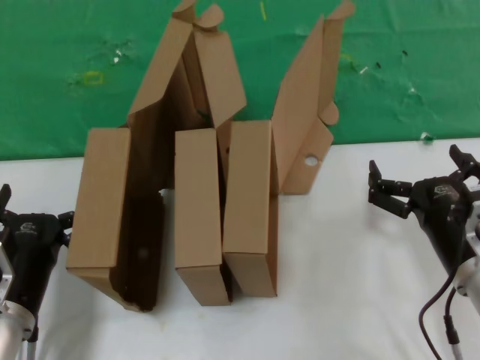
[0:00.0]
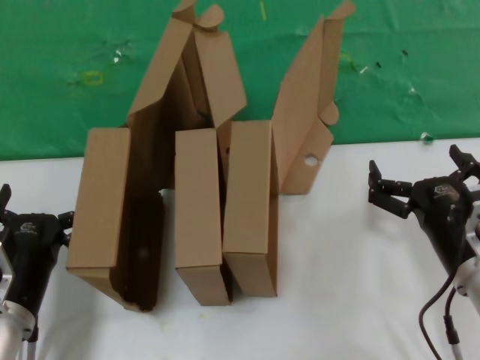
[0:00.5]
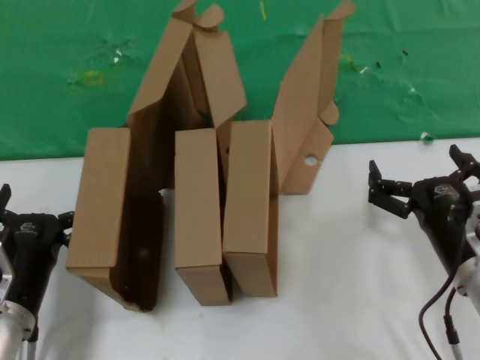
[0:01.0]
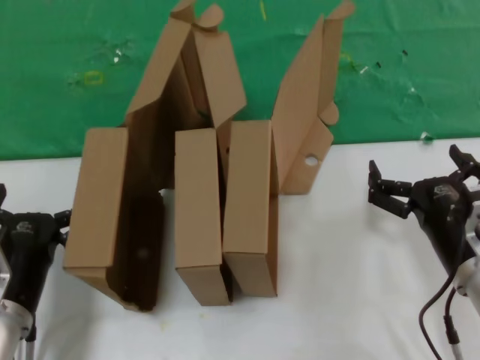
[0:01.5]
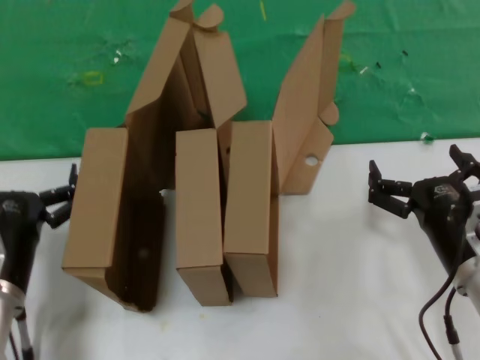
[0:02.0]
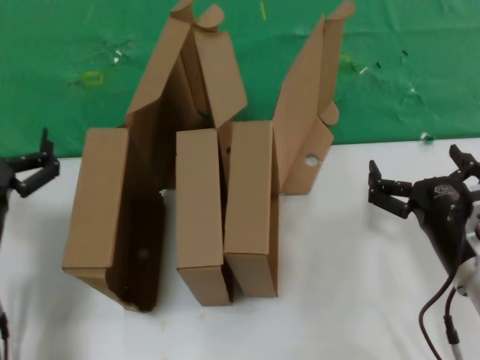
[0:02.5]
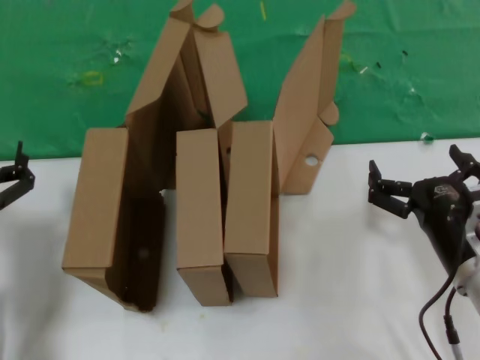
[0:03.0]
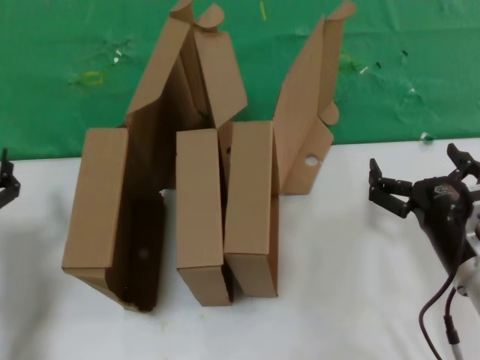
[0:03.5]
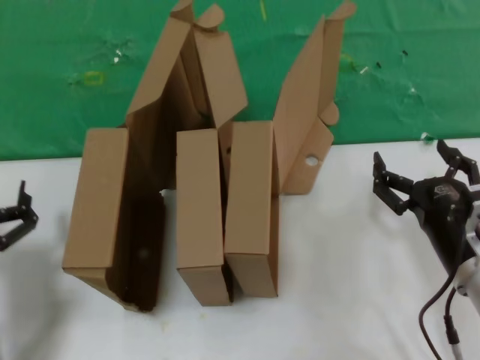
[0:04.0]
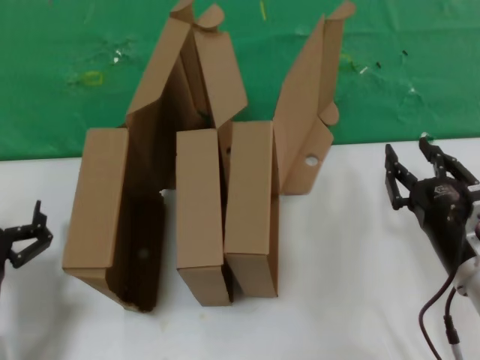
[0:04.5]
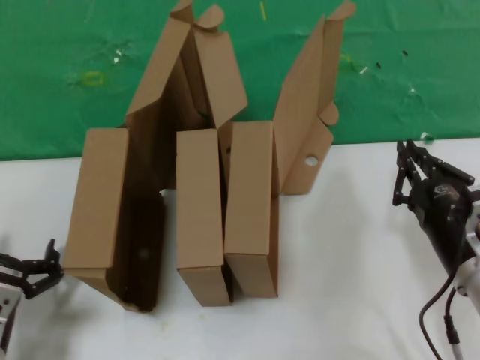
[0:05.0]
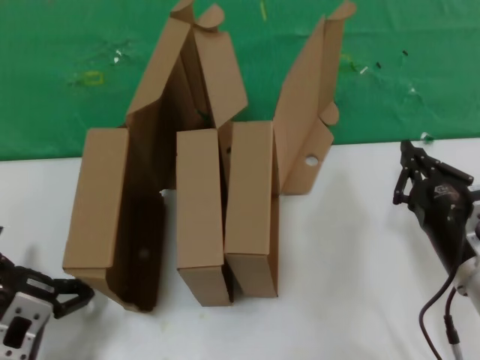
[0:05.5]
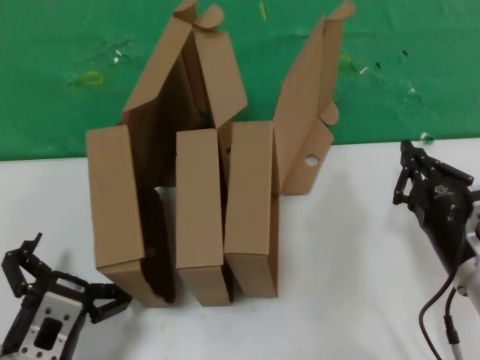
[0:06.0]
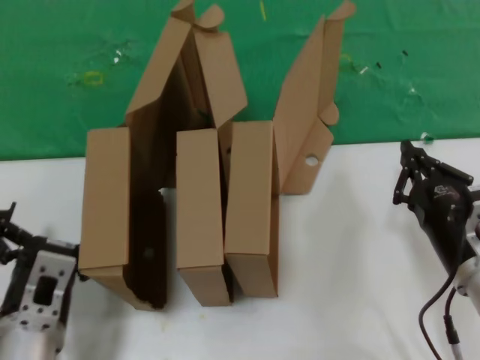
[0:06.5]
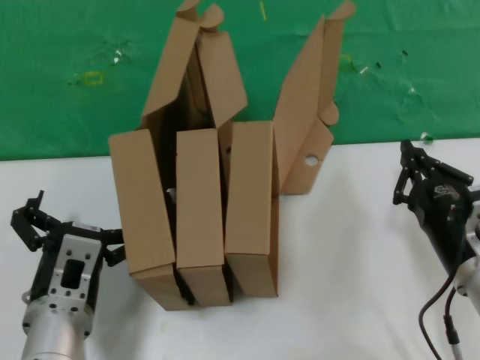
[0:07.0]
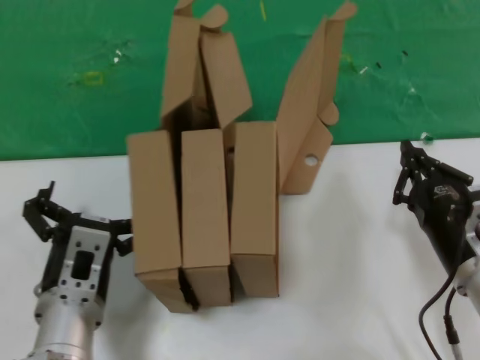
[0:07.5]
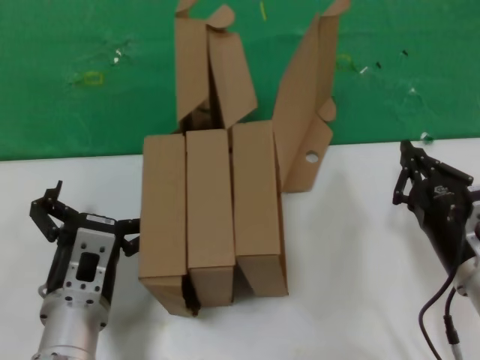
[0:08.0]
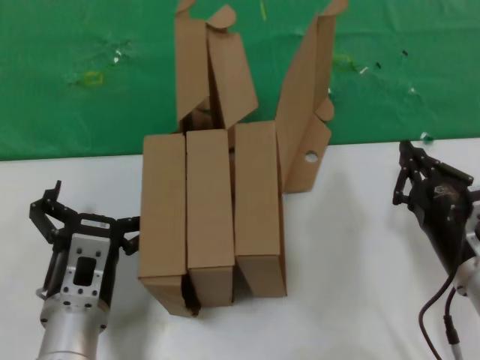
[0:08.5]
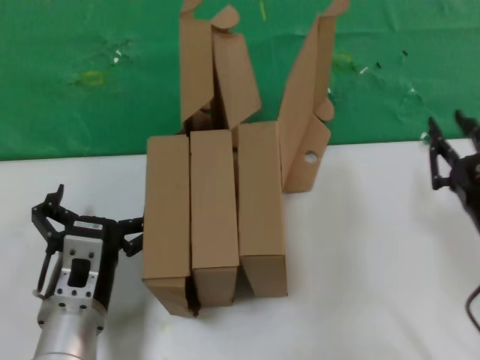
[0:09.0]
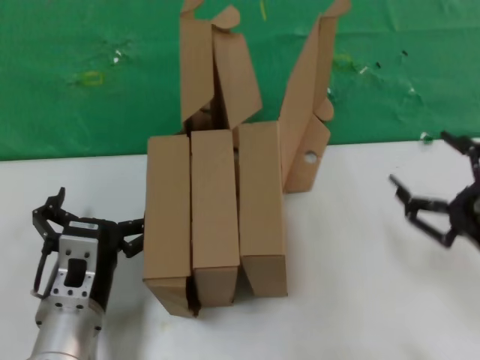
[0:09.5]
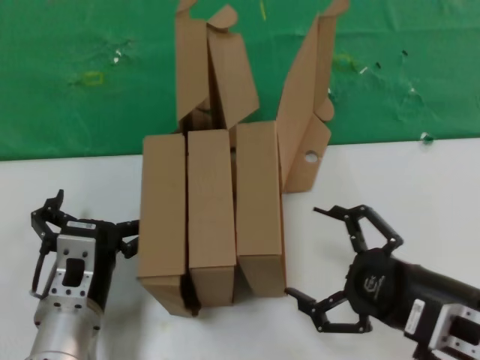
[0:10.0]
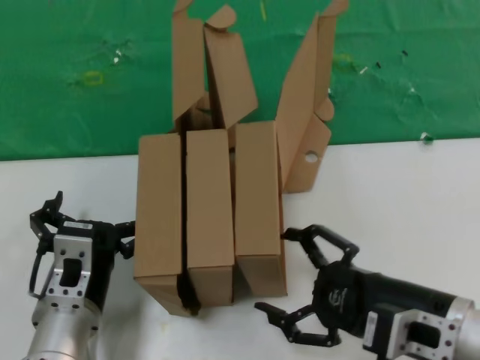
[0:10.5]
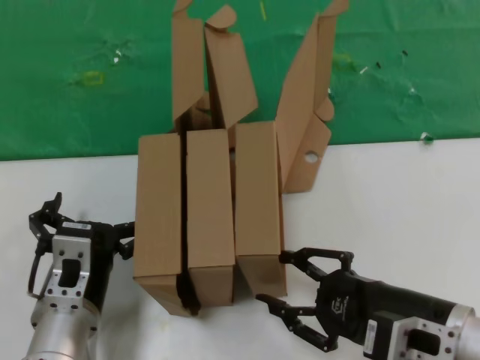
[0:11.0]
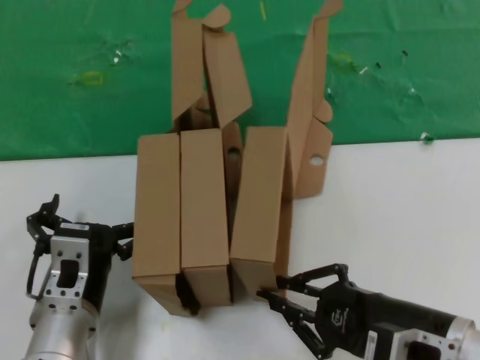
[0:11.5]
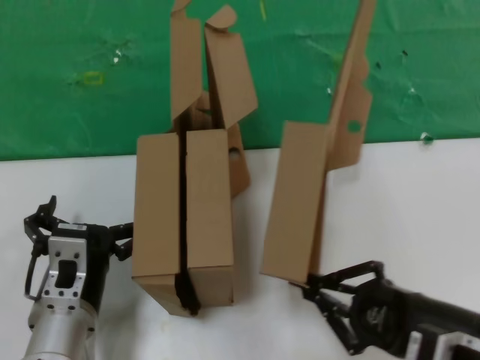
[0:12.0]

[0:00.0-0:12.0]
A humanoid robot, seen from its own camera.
Task of the whole recording: pick up the paper box and put it at the back.
Step, 0:00.0 to 0:11.5: Grasp the paper box.
0:00.0 to 0:02.0: The hands stay close to where they were, moving slightly.
0:02.0 to 0:04.0: The left hand shifts by roughly 5 cm.
0:04.0 to 0:06.0: The left hand shifts approximately 10 cm to the right.
0:06.0 to 0:08.0: The left hand travels forward and to the right by roughly 10 cm.
0:08.0 to 0:10.0: The right hand moves backward and upward, roughly 10 cm.

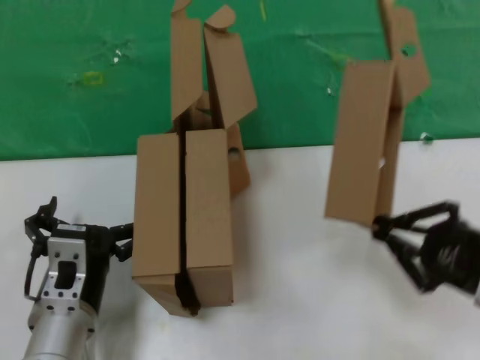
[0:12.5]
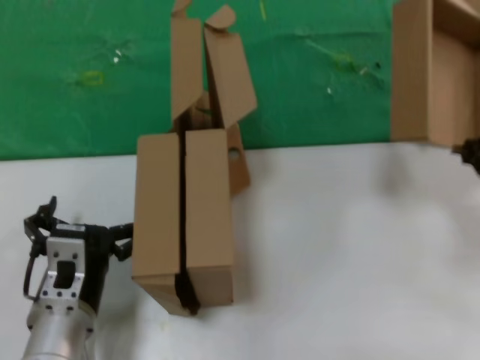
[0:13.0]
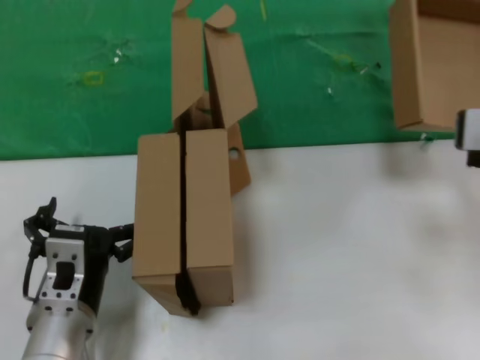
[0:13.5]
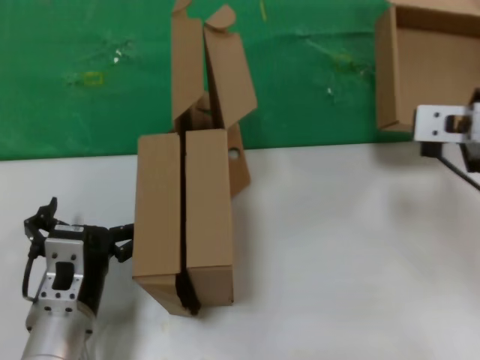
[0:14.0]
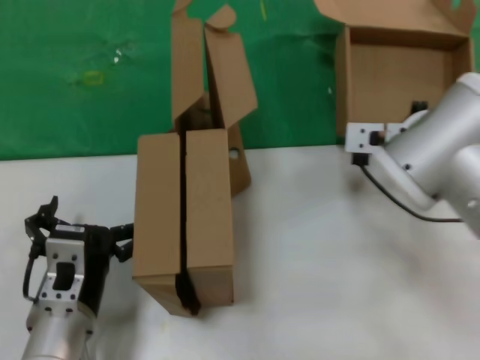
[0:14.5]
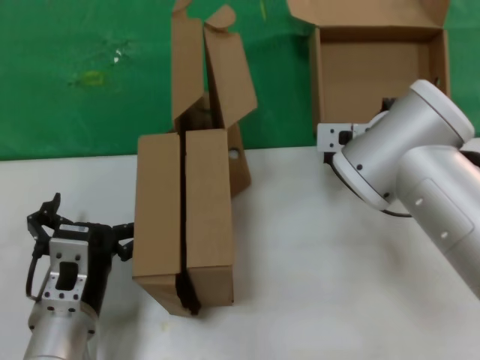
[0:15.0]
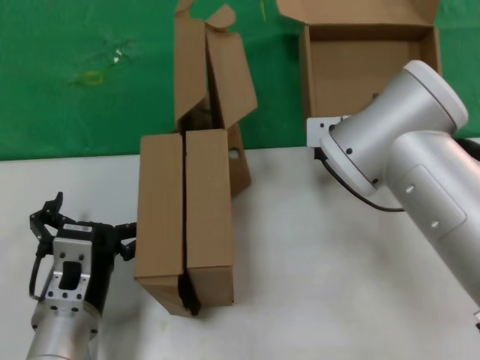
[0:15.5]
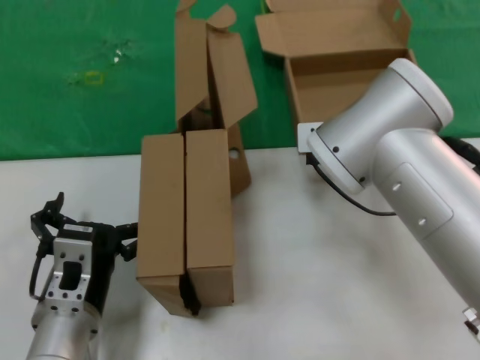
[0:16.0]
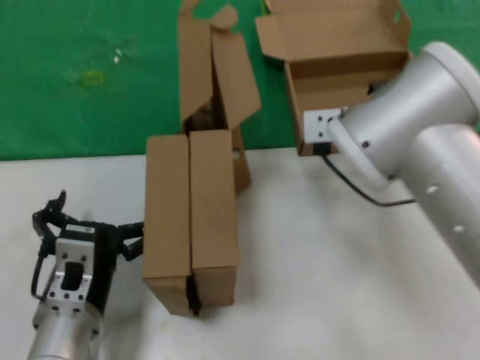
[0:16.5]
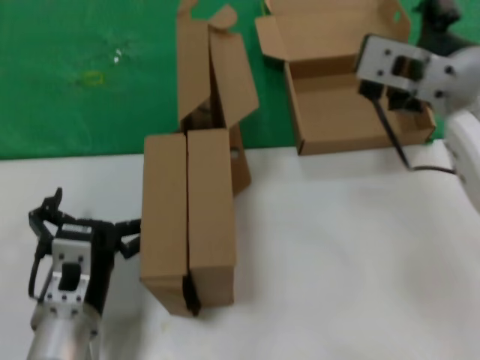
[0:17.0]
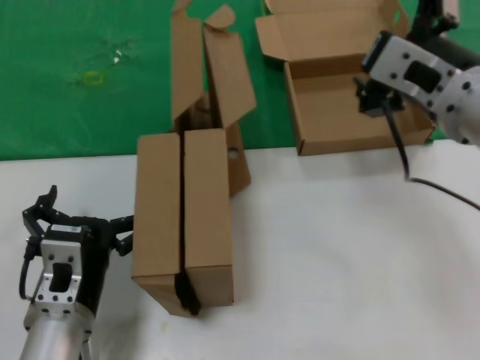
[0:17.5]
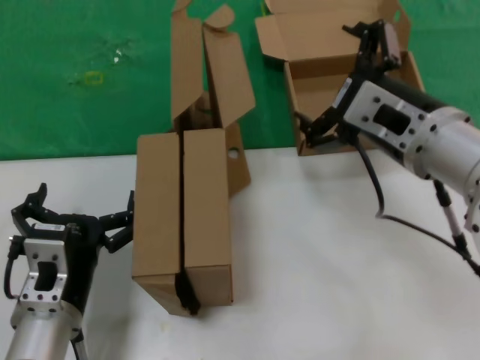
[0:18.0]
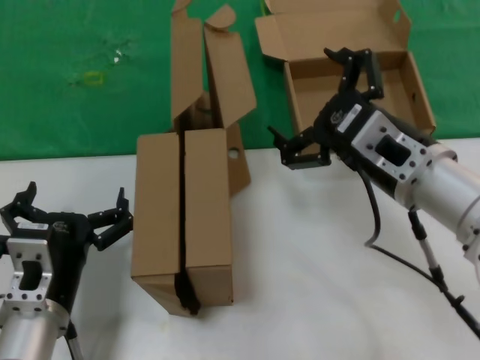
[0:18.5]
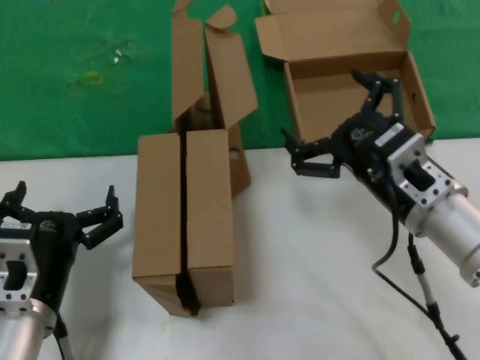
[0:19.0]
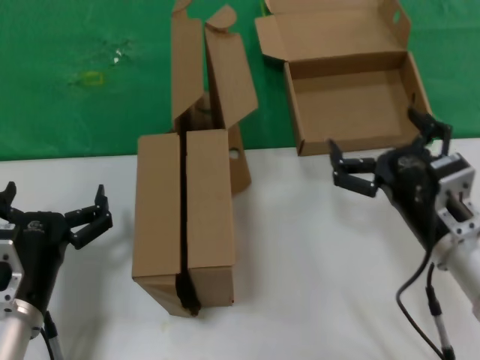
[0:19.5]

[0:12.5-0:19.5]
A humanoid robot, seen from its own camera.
Task of the whole recording: pick up the paper box and put it at the back.
Step, 0:12.5 to 0:16.0: Place the paper box on the table.
0:12.5 to 0:14.5: The right hand travels forward and to the left by roughly 25 cm.
0:14.5 to 0:16.0: The right hand shifts some 5 cm to the left.
0:16.0 to 0:17.5: The right hand goes about 15 cm backward, to the right and upward.
0:17.5 to 0:19.5: The left hand heads to the left, covering roughly 5 cm. Meanwhile the right hand goes roughly 20 cm downward.
